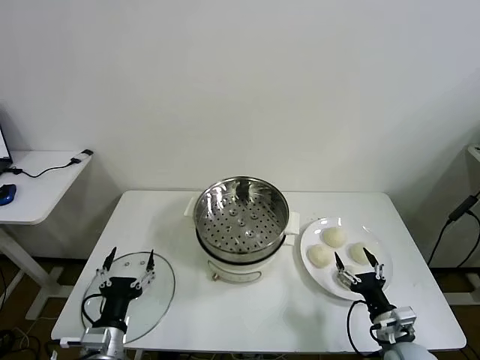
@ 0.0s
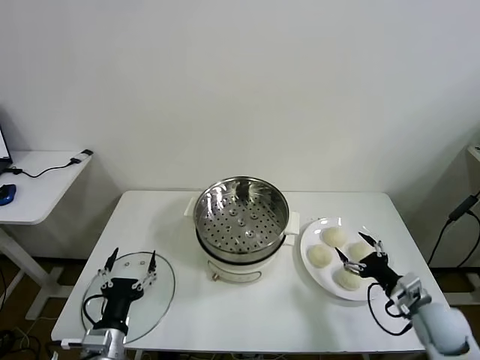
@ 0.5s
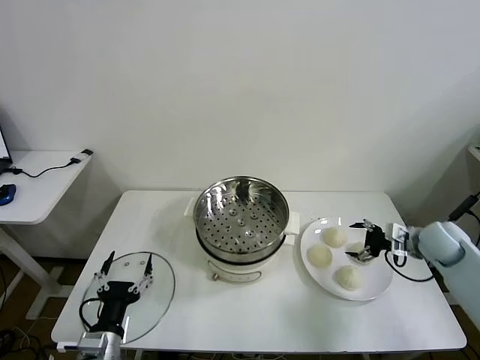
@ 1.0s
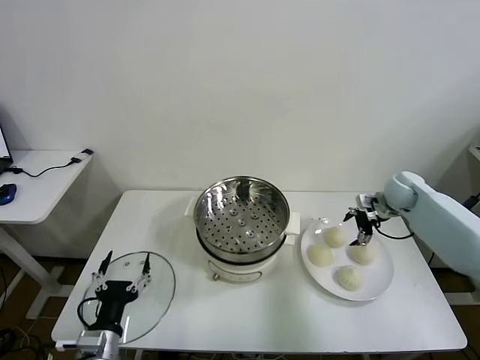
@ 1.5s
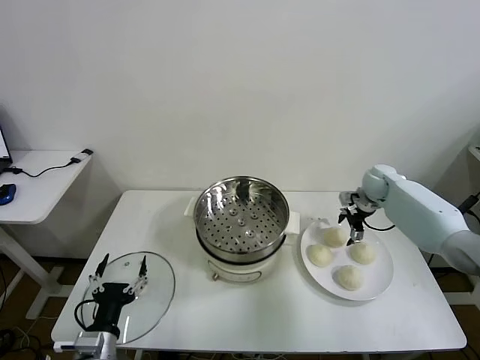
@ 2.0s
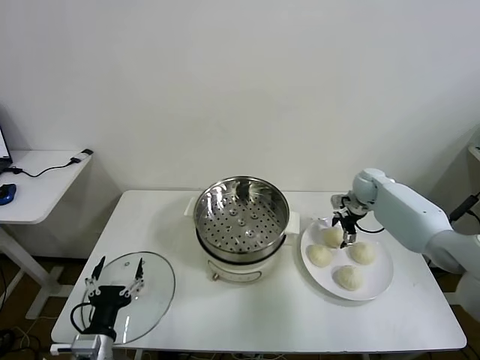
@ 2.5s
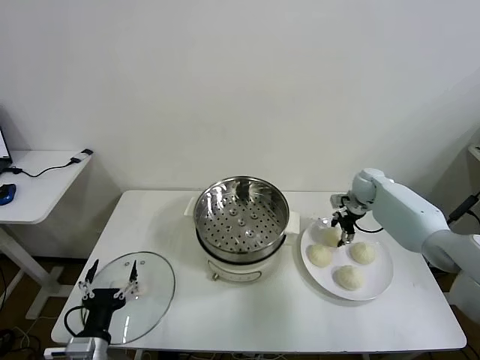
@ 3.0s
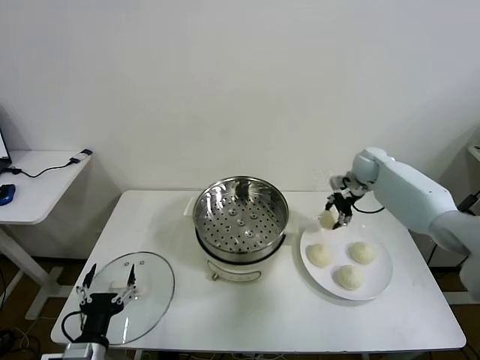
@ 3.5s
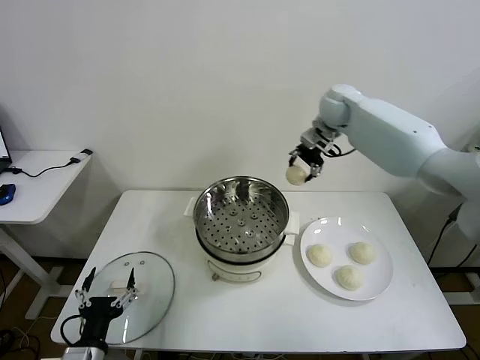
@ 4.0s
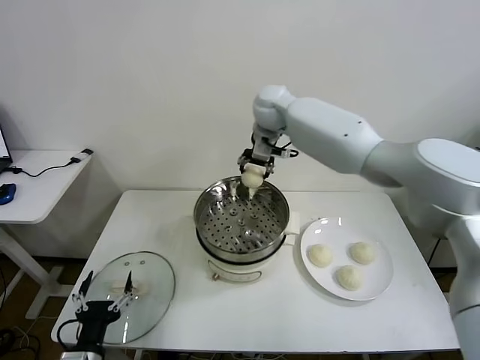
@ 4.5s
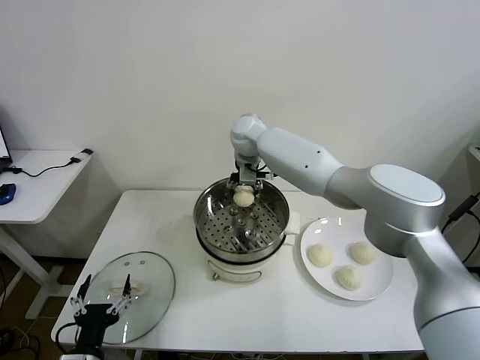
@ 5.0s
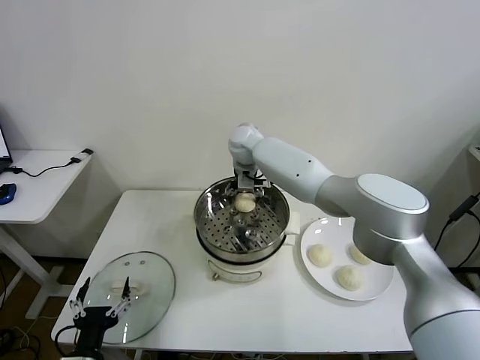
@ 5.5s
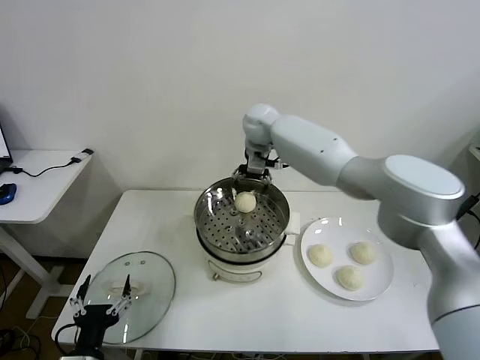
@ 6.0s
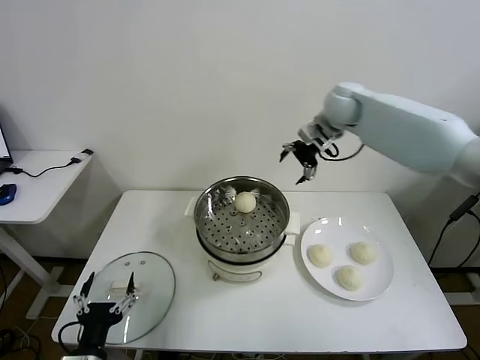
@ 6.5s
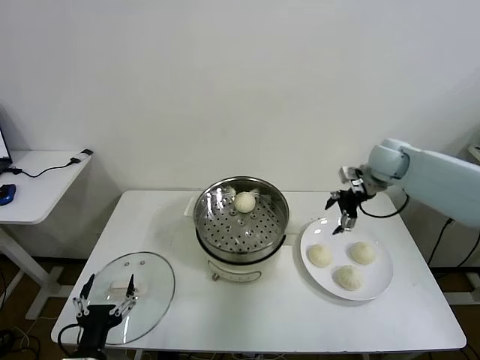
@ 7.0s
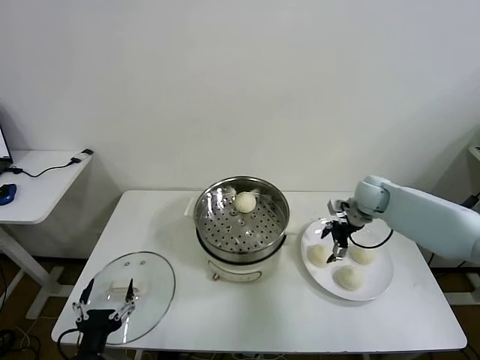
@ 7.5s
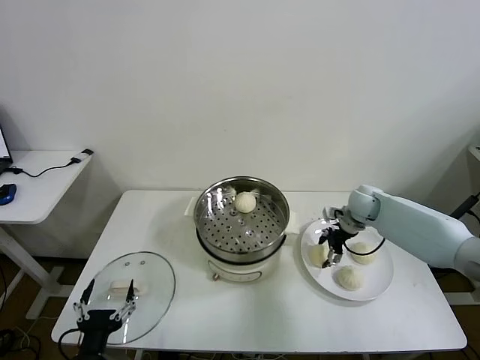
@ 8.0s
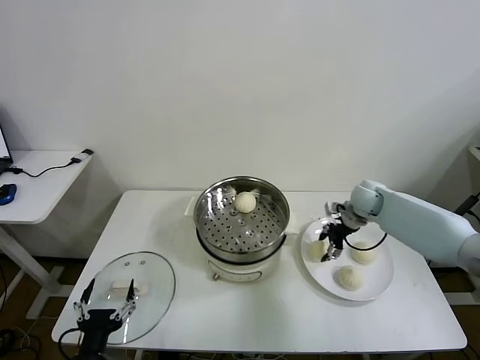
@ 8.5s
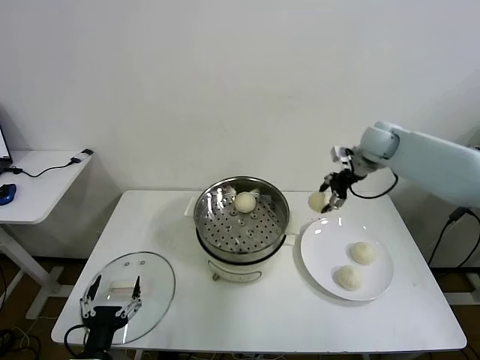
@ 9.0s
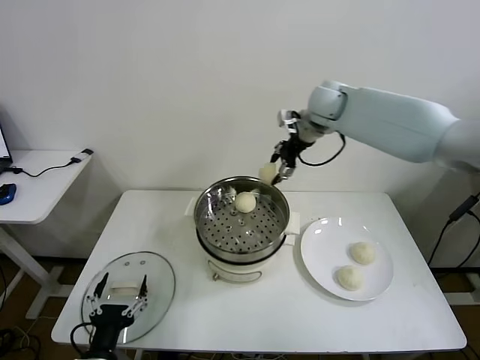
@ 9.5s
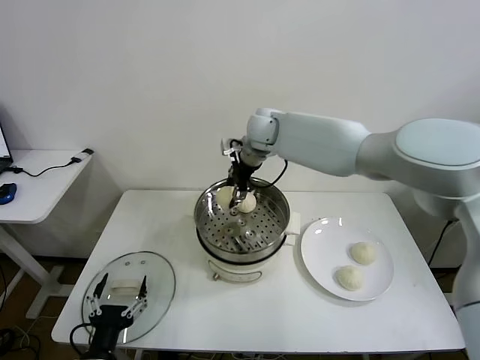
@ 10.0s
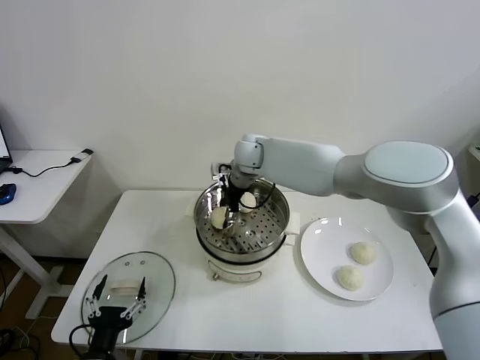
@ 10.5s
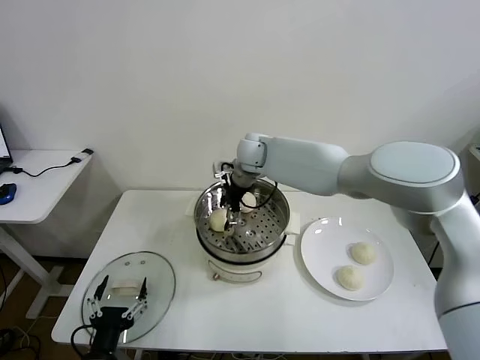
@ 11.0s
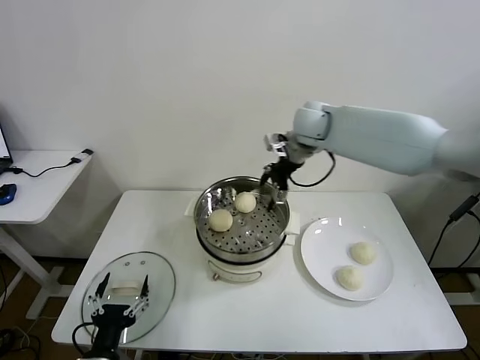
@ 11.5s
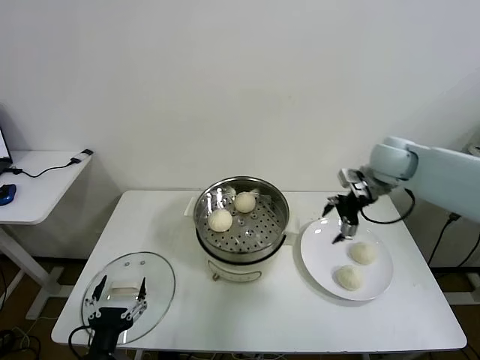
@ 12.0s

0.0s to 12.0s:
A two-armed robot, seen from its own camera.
Task of the whole recording: take steamed baozi put them in steamer then cover it.
Step, 0.0s to 3.0s: Grasp the baozi in the plate with right gripper.
Step, 3.5s to 6.0s: Place the baozi on the steamer with right gripper.
Step, 6.5s to 8.5s: Grasp the baozi in the plate with right gripper.
Step, 9.0s to 11.0s: Place the baozi on the steamer with right gripper.
2.0s to 4.0s: The right gripper goes about 30 cm upward and to the left, and closes.
4.0s to 6.0s: The right gripper shifts roughly 10 cm to the left, and opens its fingers.
6.0s to 8.0s: The right gripper heads to the right and downward, covering roughly 35 cm, and closes.
8.0s to 10.0s: The right gripper heads to the left and upward, covering about 35 cm, and closes.
10.0s to 12.0s: The right gripper goes roughly 30 cm to the right, and opens its fingers.

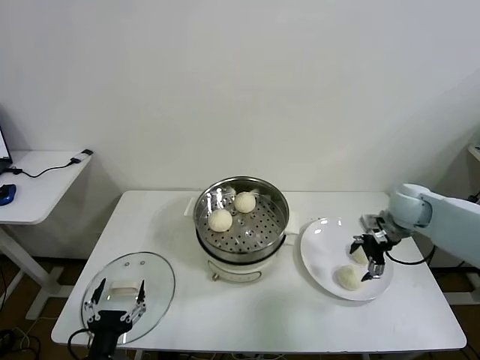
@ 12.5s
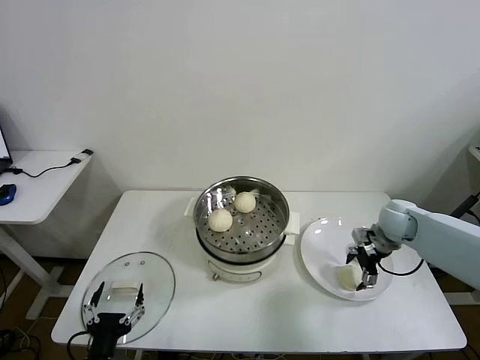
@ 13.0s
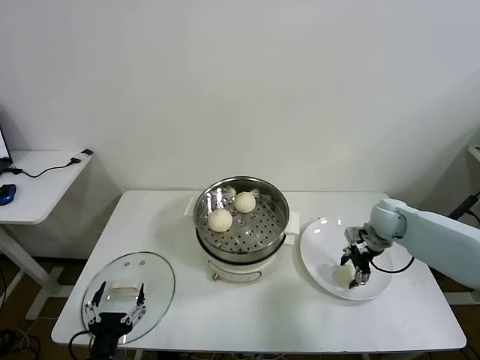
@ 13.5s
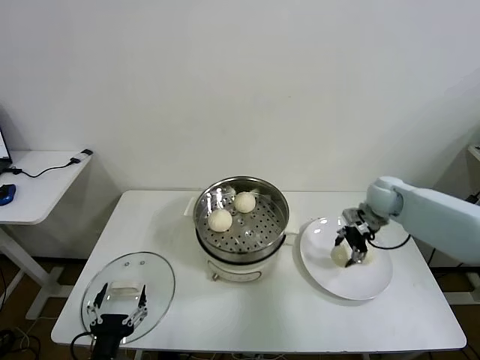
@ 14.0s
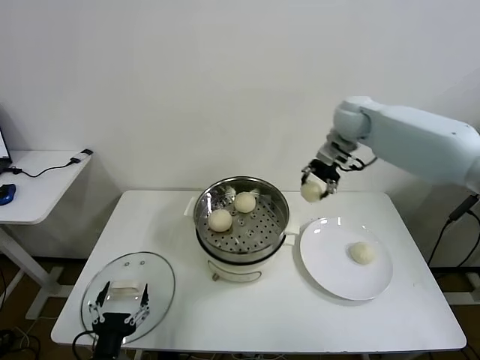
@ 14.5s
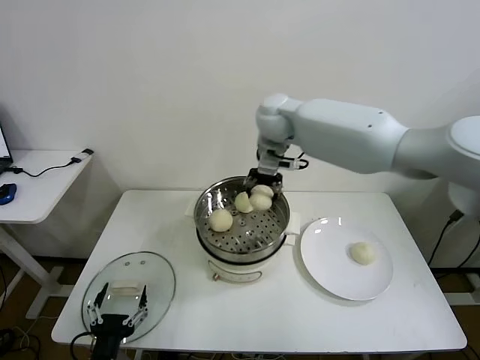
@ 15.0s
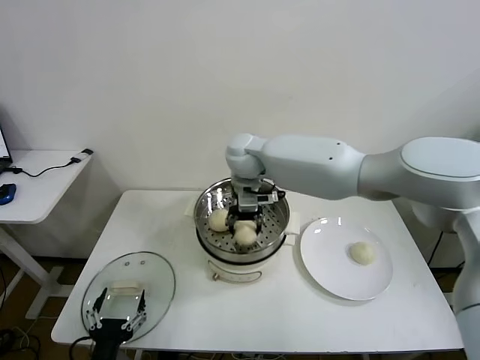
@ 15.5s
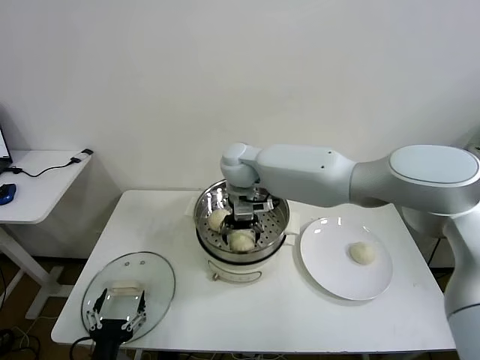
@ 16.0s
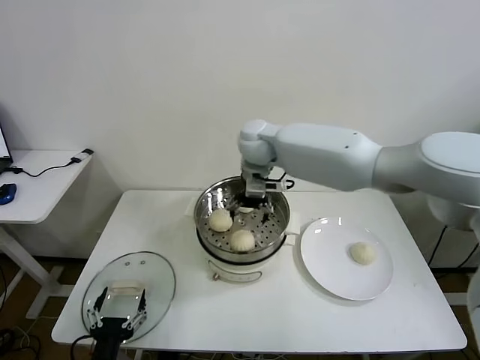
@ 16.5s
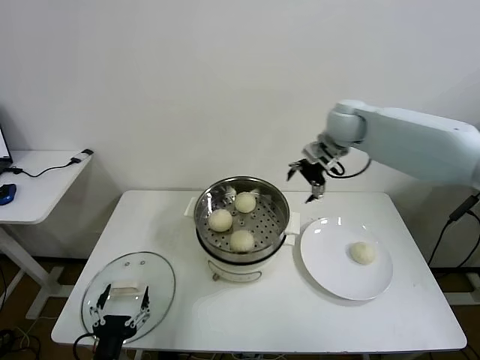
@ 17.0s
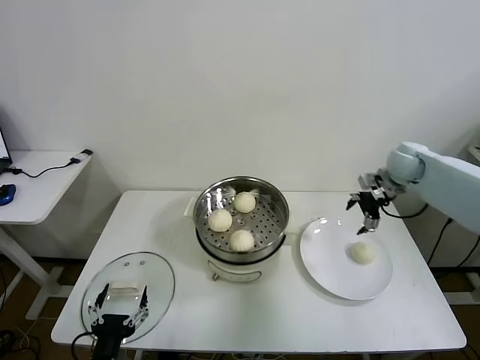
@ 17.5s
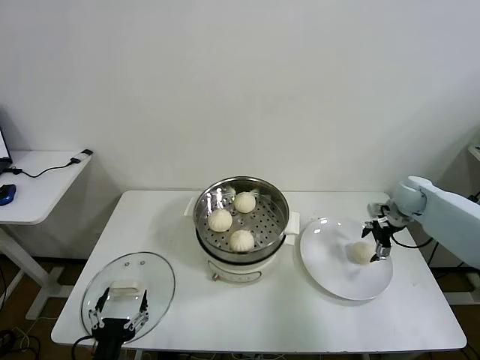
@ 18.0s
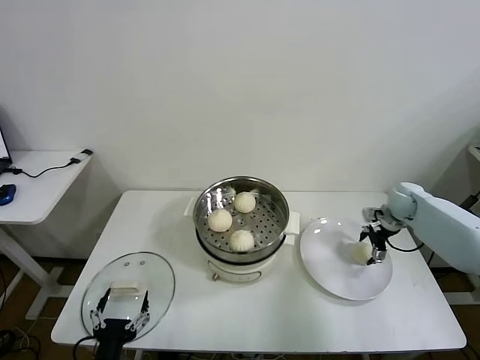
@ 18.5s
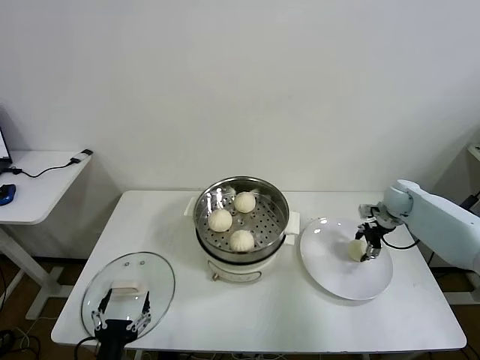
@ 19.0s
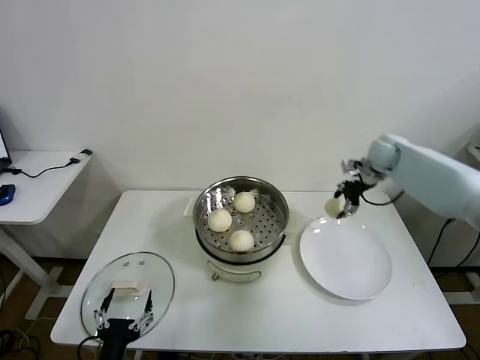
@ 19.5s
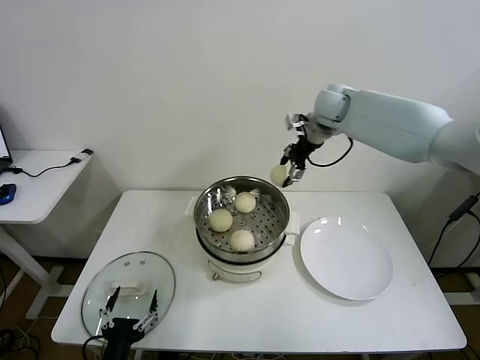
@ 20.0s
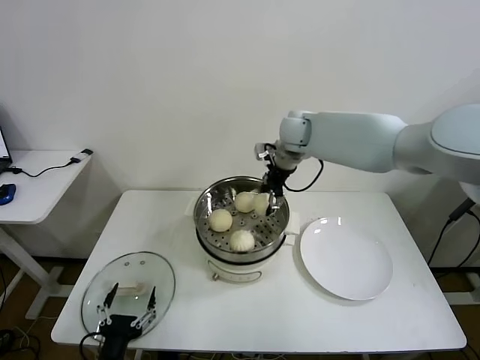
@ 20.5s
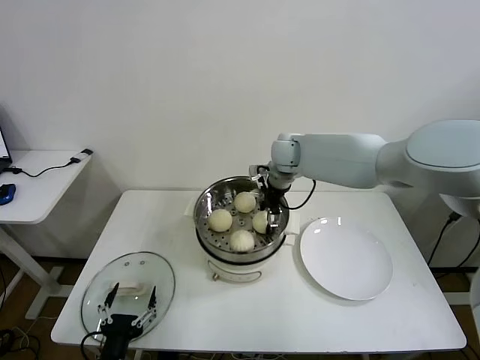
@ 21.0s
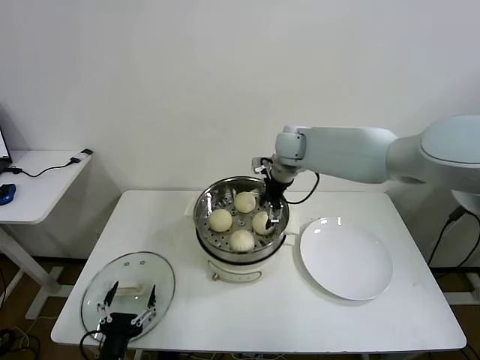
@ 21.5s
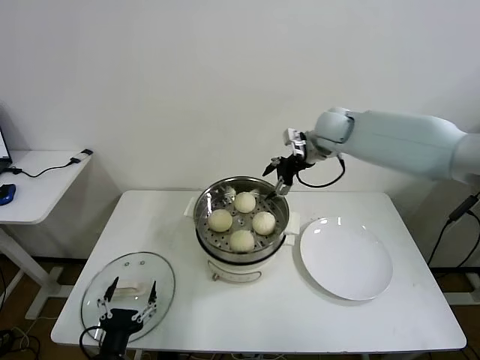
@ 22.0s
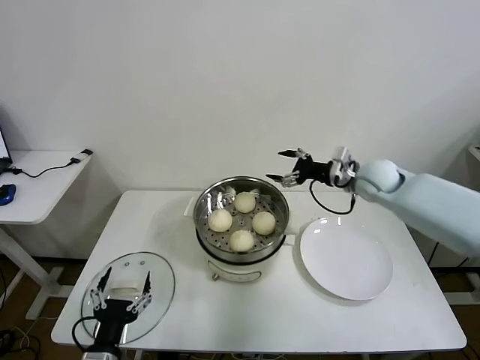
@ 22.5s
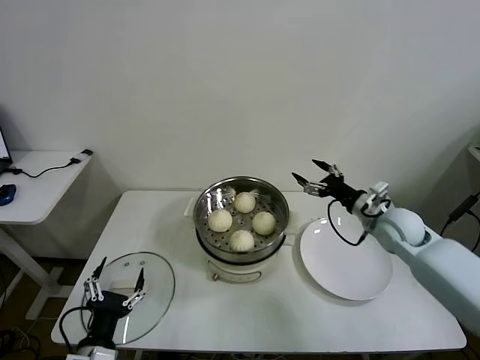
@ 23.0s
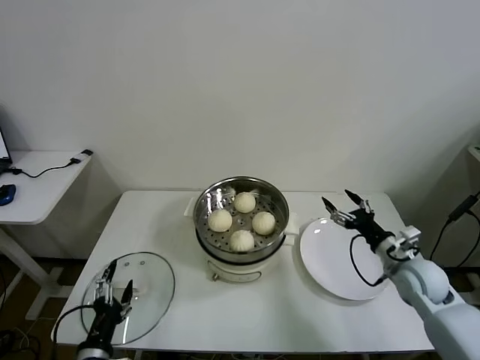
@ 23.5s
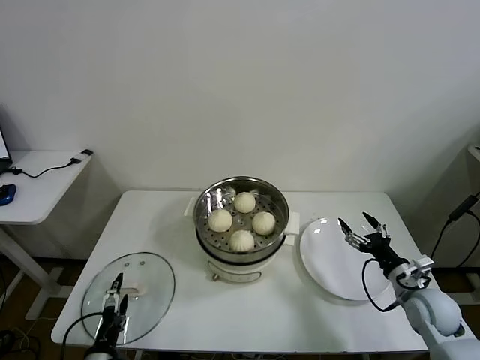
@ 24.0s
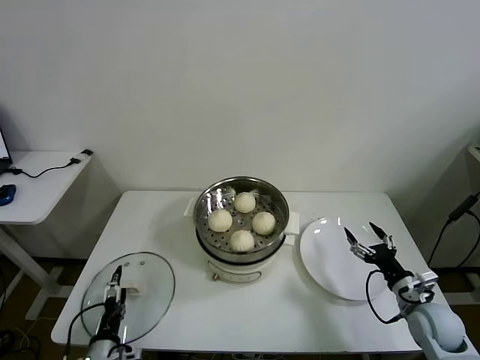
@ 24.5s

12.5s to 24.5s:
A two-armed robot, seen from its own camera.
Task of the whole recording: take steamed baozi put them in steamer then cover it.
Step, 14.0s to 16.0s: Place the baozi on the steamer with right gripper.
Step, 16.5s to 18.5s: Grasp the baozi in the plate with right gripper.
Step, 19.5s to 21.0s: Place the baozi on the steamer with right gripper.
12.5s to 14.5s: The right gripper shifts about 25 cm upward, to the left and forward, and closes.
14.5s to 16.5s: The right gripper heads to the left, covering about 20 cm, and opens.
16.5s to 18.5s: The right gripper heads to the right and downward, covering approximately 40 cm.
18.5s to 20.5s: The right gripper heads to the left and upward, covering some 35 cm, and closes.
20.5s to 22.5s: The right gripper shifts some 20 cm to the right, downward and backward, and opens its fingers.
22.5s to 24.5s: The right gripper goes some 30 cm backward and downward. Meanwhile the left gripper heads downward, covering roughly 10 cm.

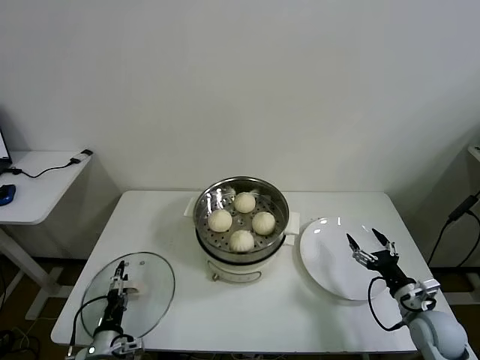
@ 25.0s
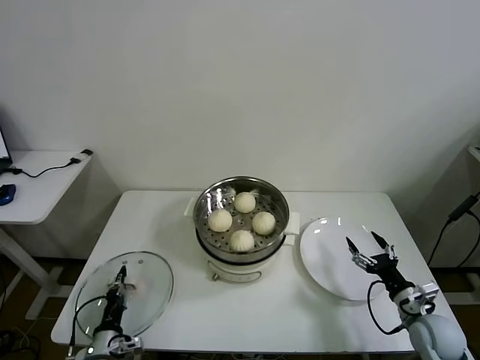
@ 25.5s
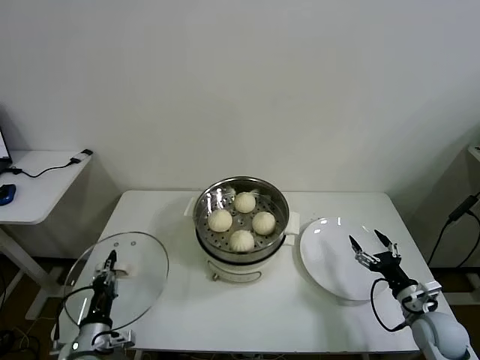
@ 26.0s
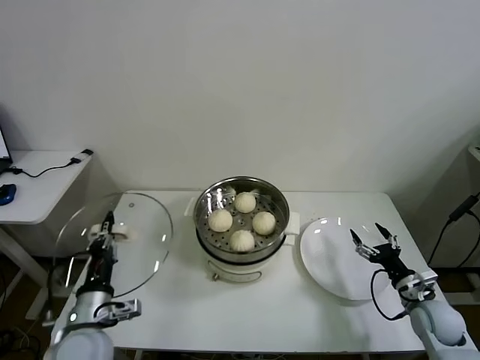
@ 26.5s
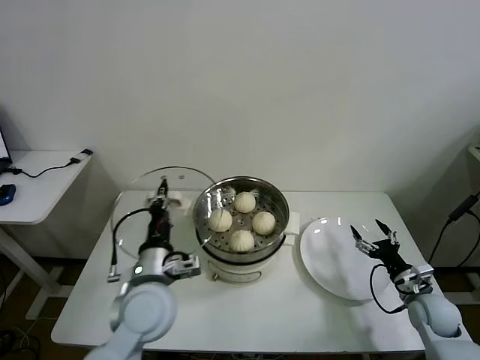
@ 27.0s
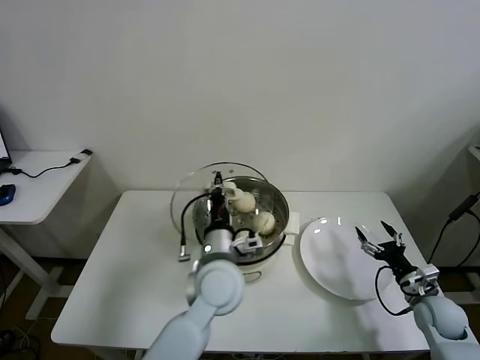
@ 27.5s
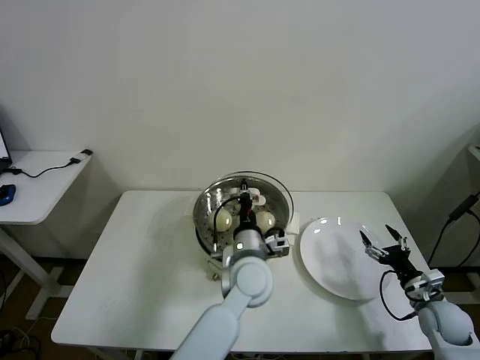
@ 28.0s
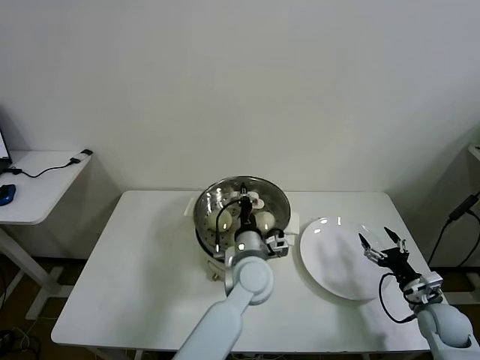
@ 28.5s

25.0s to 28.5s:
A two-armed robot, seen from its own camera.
Task of the whole recording: take steamed baozi put them in steamer then cover it.
25.0s to 27.0s: The left gripper is displaced upward and to the right by some 25 cm, and closes. Meanwhile the right gripper ends up approximately 5 cm from where it was.
27.0s to 28.5s: The left gripper heads to the right and forward, covering about 20 cm.
